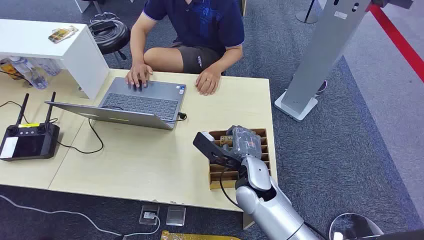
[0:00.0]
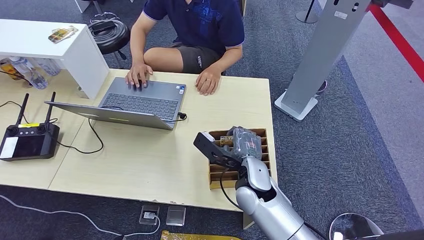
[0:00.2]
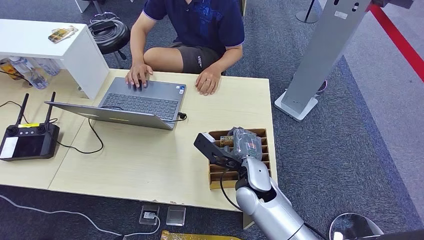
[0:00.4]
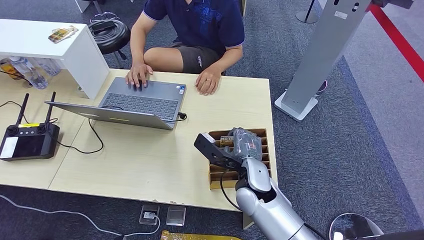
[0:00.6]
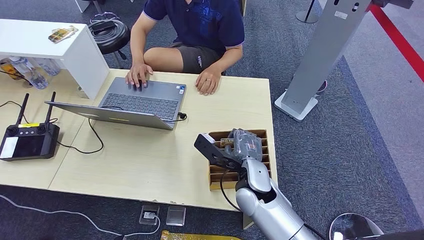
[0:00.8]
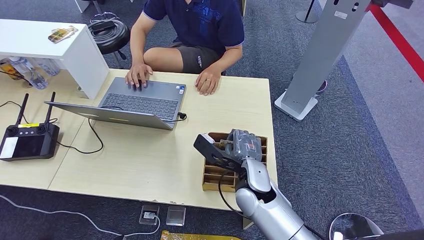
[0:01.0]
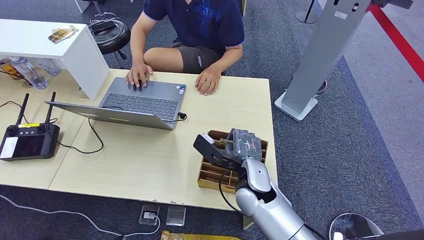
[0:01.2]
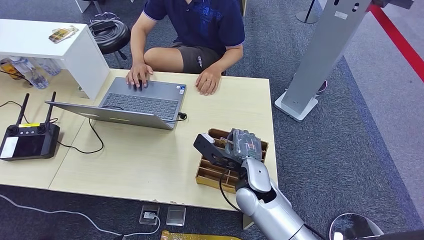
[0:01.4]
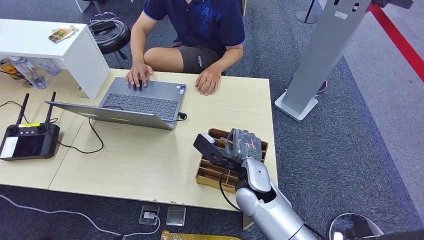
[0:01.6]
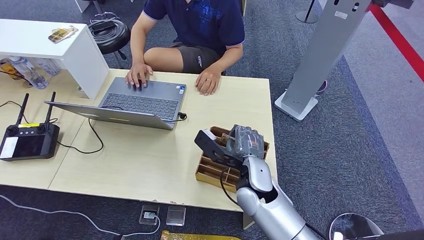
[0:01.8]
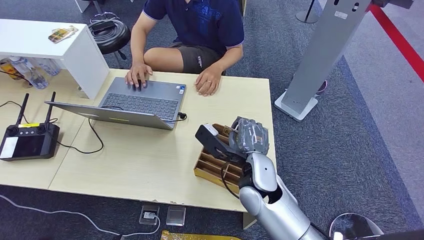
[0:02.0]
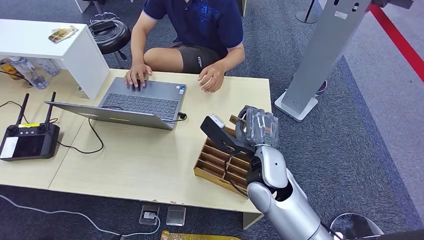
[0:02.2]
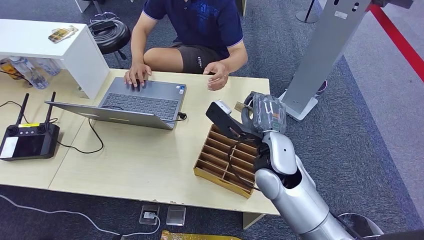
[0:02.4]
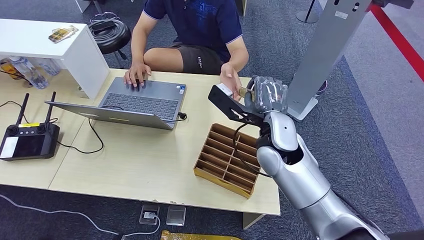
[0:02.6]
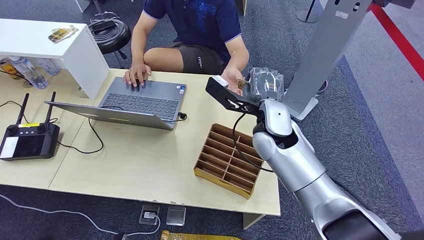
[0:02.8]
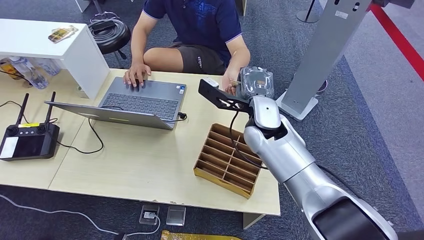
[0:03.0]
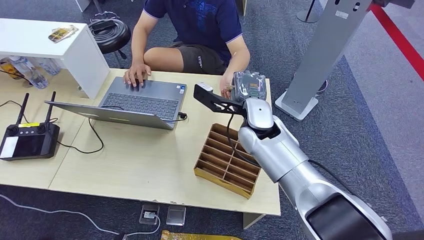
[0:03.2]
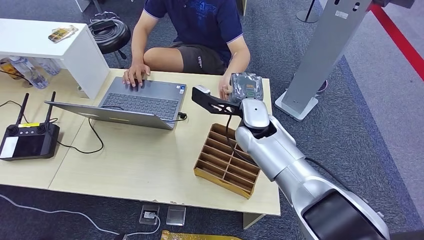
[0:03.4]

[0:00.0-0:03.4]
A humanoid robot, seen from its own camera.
Step, 0:00.0 to 0:02.0: Pick up the room card from the card holder.
Step, 0:02.2 to 0:03.4: Hand the room card to the target.
0:01.6 to 0:03.4: The right hand is displaced forward and upward by approximately 15 cm.
